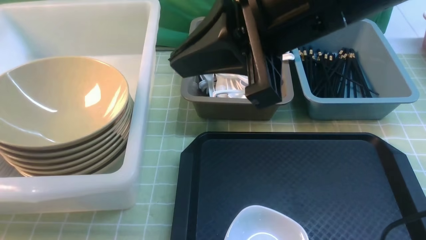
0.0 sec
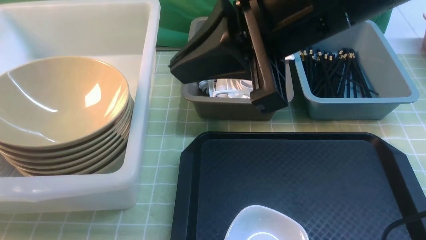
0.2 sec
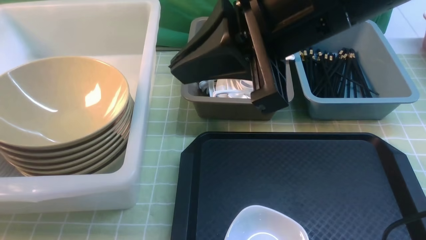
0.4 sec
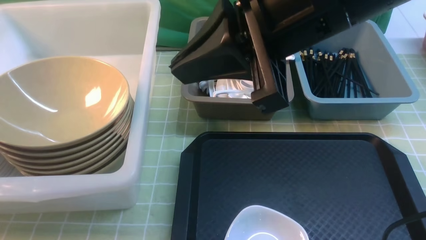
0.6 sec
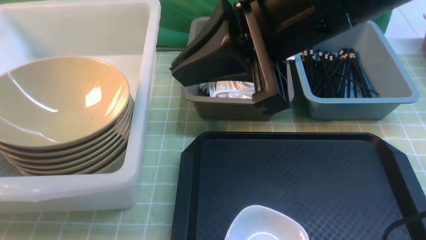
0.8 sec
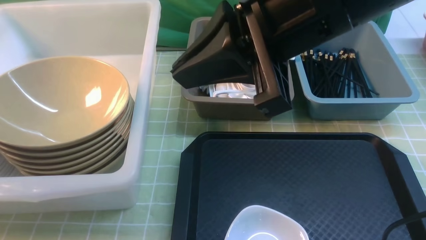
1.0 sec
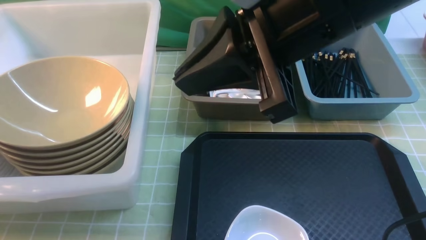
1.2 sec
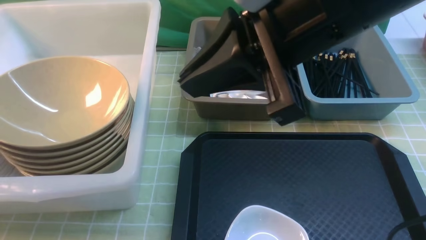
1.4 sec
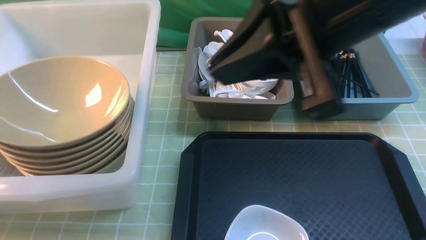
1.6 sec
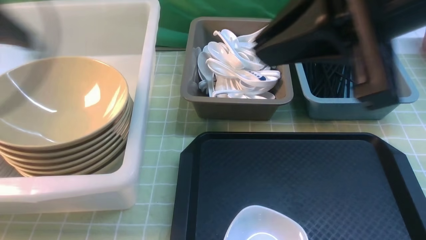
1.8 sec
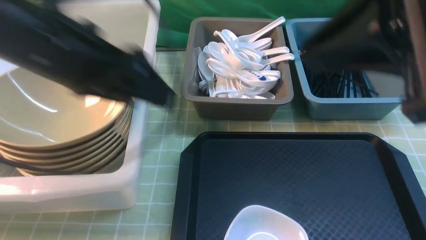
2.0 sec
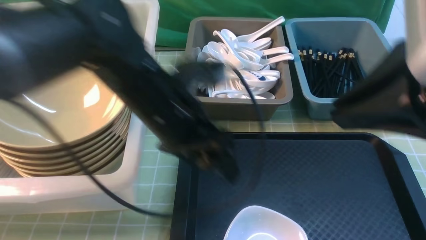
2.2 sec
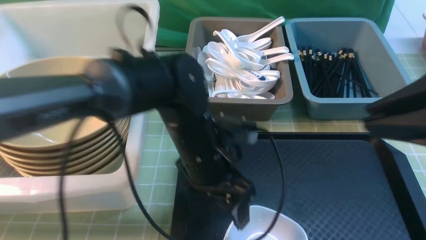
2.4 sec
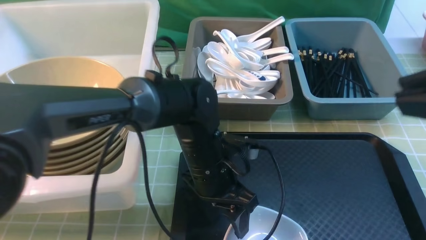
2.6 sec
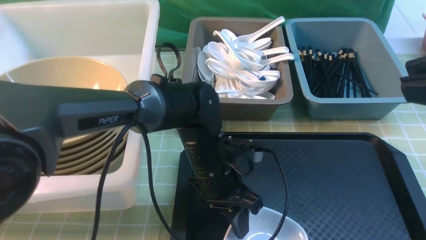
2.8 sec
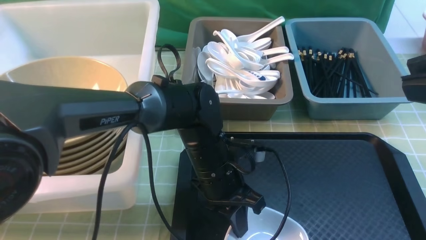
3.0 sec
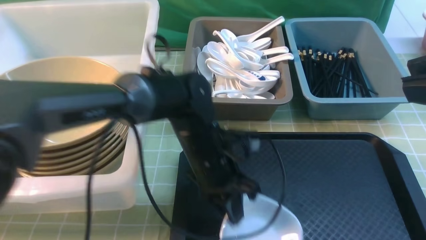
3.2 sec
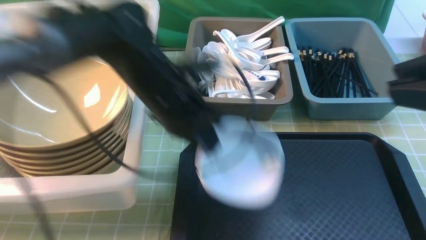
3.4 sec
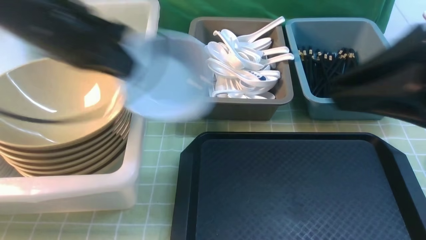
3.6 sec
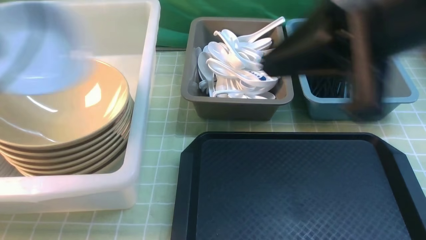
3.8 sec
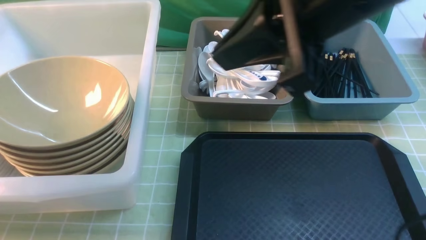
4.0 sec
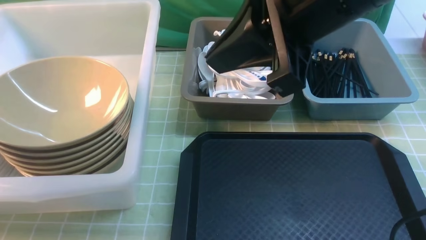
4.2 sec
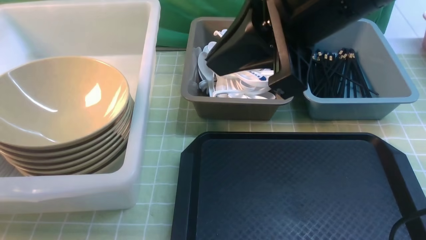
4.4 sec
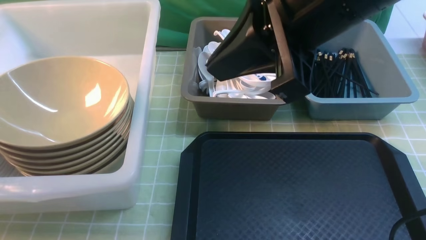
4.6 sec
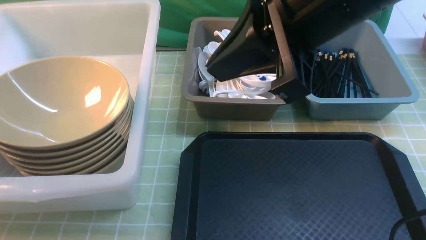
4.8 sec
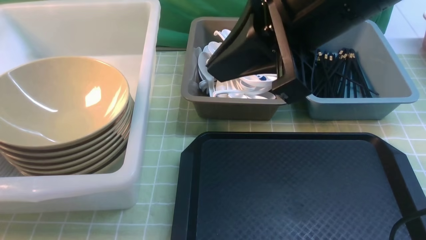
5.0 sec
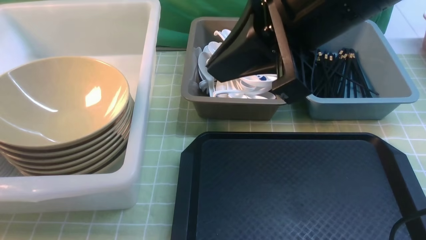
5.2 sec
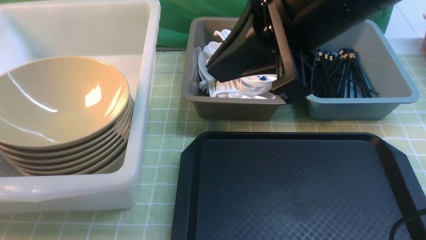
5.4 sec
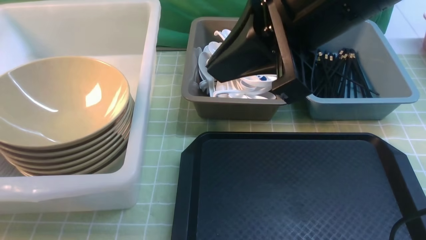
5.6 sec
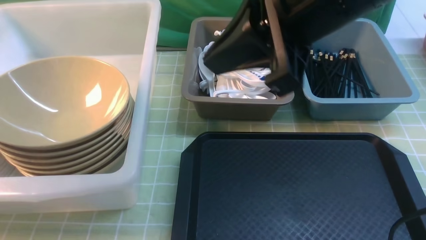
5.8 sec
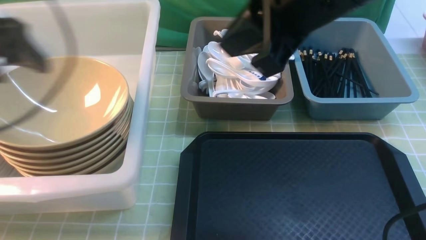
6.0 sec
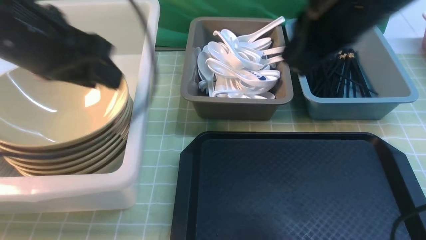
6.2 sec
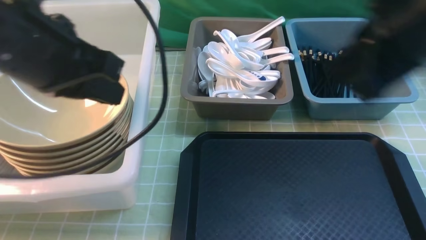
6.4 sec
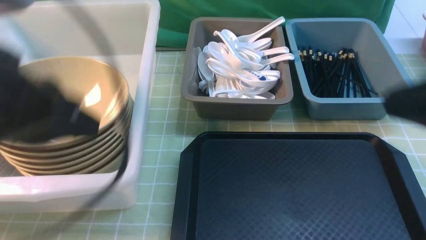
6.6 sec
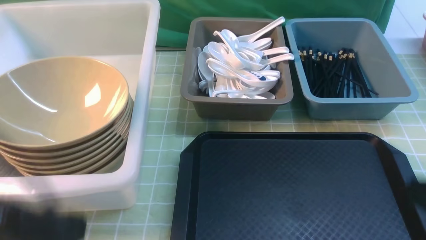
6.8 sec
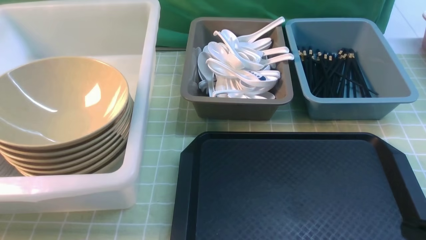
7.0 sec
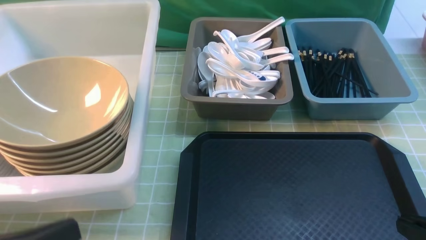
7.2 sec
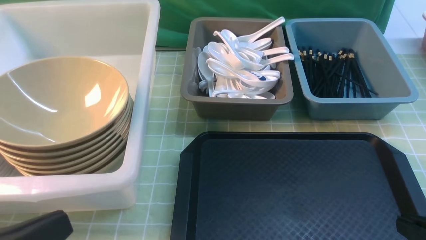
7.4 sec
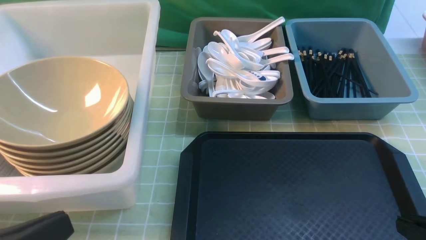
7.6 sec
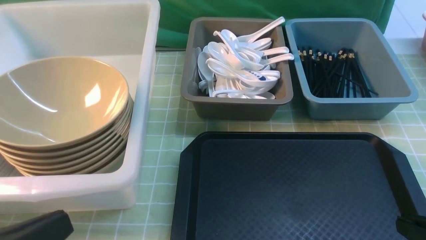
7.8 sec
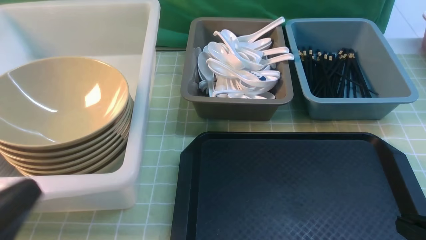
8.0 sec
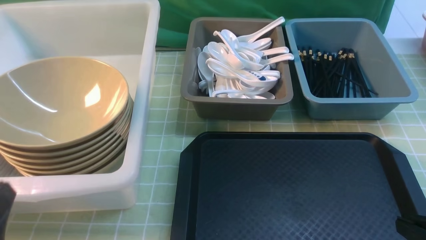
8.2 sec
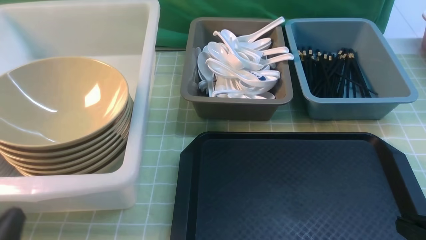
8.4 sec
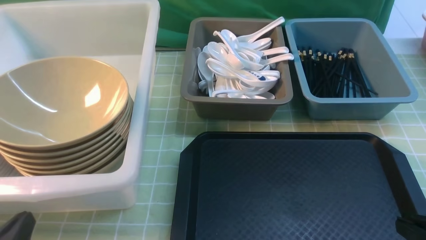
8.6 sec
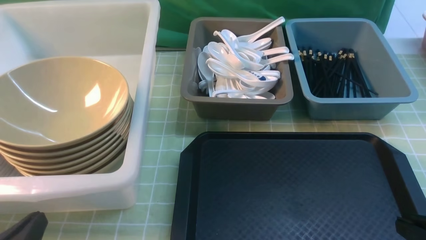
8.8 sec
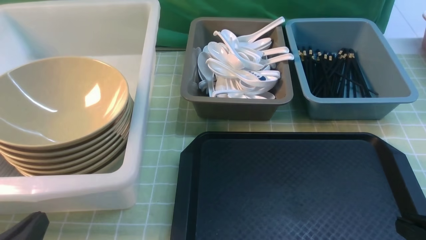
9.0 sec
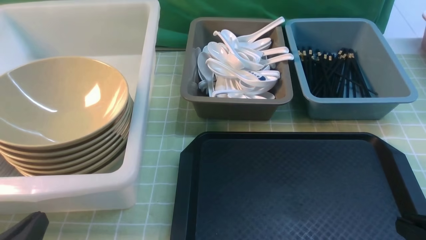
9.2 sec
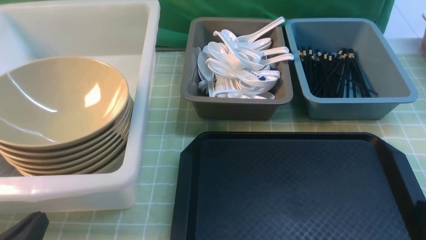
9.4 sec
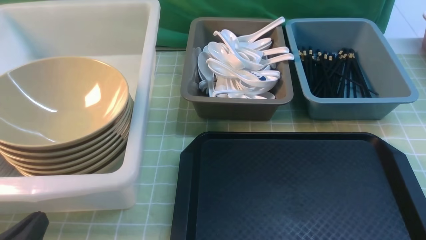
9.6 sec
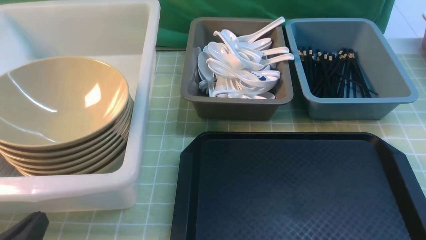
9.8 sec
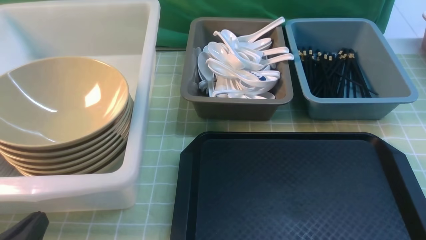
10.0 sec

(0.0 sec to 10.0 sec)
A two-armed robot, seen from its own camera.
Task of the whole recording: on green table put chopsticks spoon bowls plates into blue grey white boxes.
Step, 0.0 sec - 1.4 sec: use the left arm to put the plate into the large storage box on the left.
Step, 1.6 sec - 3.2 sec: use the left arm to grab the plate.
Step, 3.4 sec - 6.2 sec: use the left arm to put the plate into the large storage box on the left.
0.0 sec - 1.4 sec: The left gripper opens its fingers.
1.4 sec - 2.8 sec: The right gripper shifts approximately 20 cm to the right and backward, while the left gripper heads to the right and downward, covering about 50 cm, and closes its fingers.
2.8 sec - 4.2 sec: The left gripper heads to the left and upward, covering roughly 50 cm, and closes its fingers. The right gripper goes about 20 cm forward and to the left.
4.2 sec - 5.8 sec: The left gripper goes some 5 cm to the right, and opens its fingers.
5.8 sec - 7.2 sec: The left gripper goes about 25 cm backward and to the right, and closes its fingers, while the right gripper is displaced downward, backward and to the right by roughly 30 cm.
7.2 sec - 8.6 sec: The left gripper shifts approximately 10 cm downward.

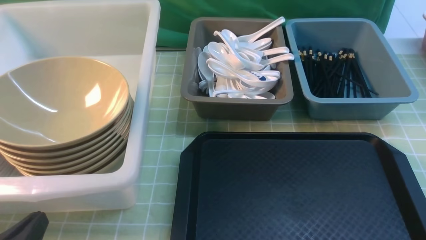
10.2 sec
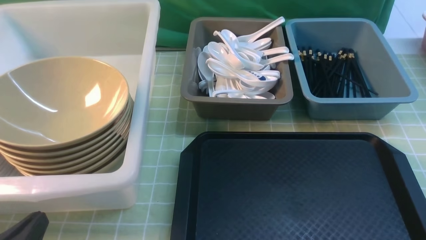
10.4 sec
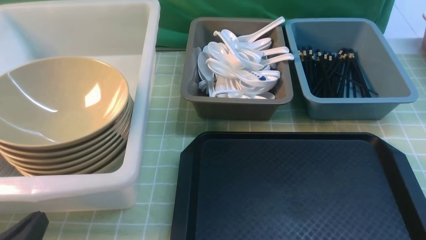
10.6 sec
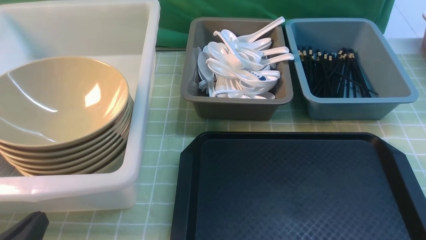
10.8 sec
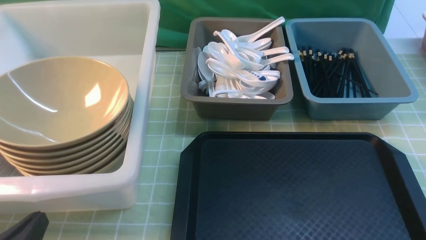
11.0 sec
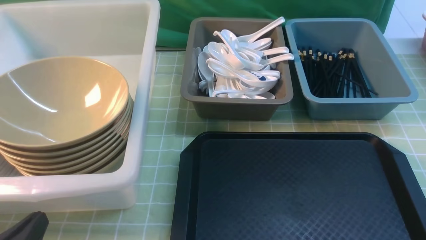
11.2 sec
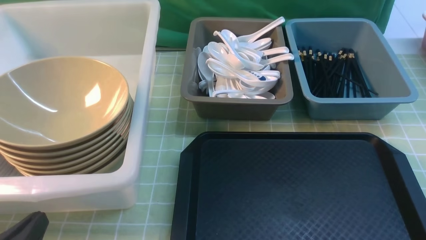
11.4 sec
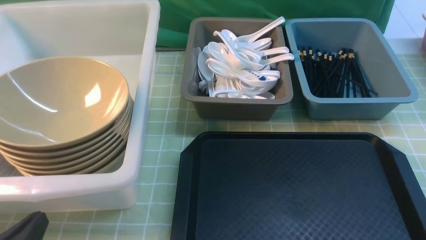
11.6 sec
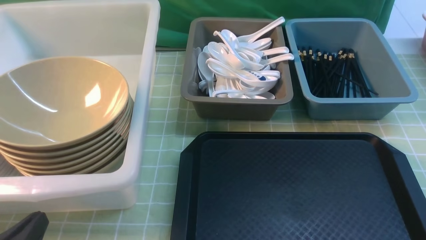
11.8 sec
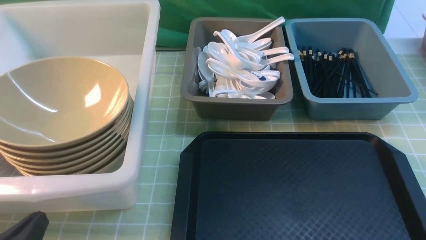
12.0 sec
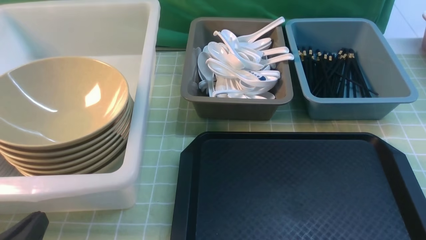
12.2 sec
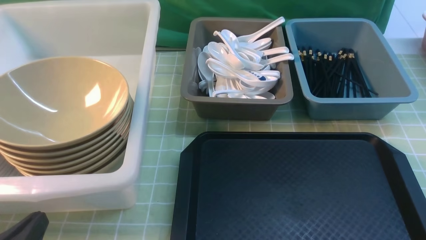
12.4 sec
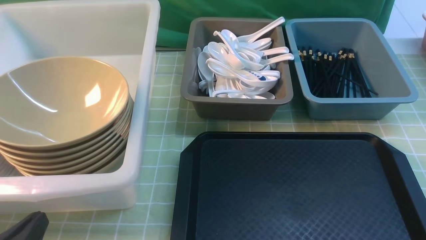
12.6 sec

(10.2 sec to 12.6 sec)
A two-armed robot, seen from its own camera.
Task of the whole recording: on green table put chopsticks spoon bowls plates into blue grey white boxes.
10.2 sec - 12.6 sec: Neither gripper changes place.

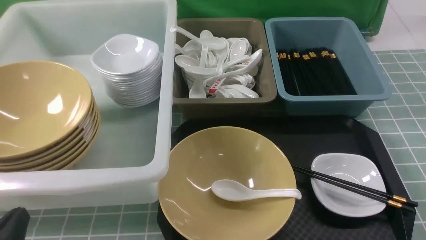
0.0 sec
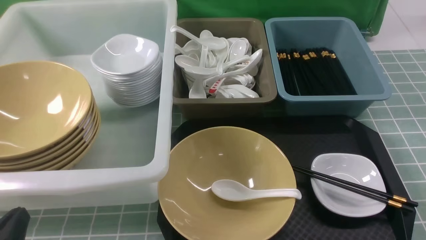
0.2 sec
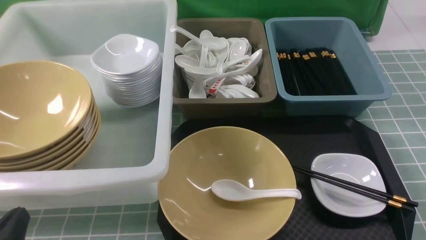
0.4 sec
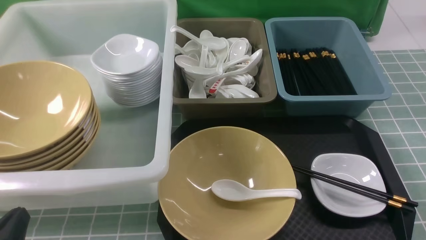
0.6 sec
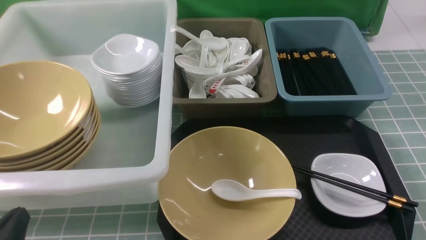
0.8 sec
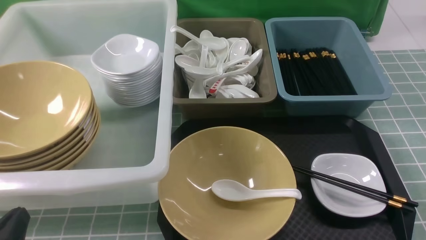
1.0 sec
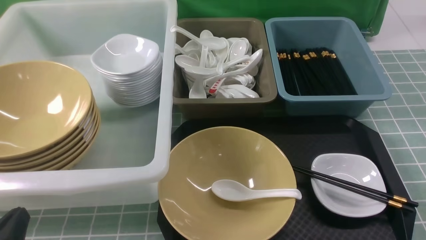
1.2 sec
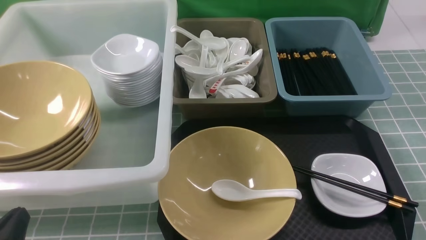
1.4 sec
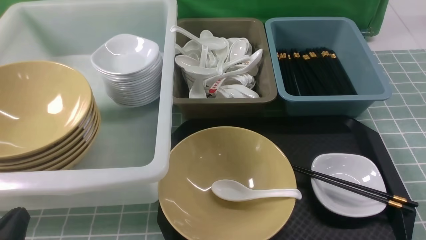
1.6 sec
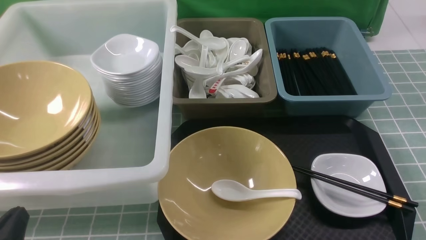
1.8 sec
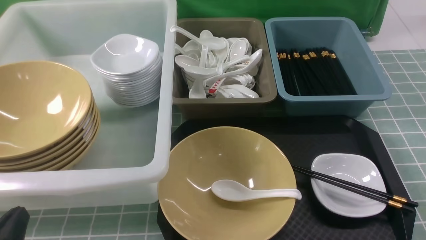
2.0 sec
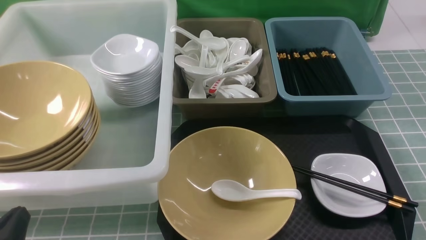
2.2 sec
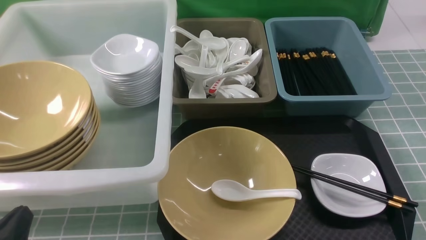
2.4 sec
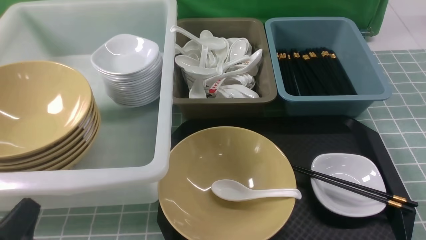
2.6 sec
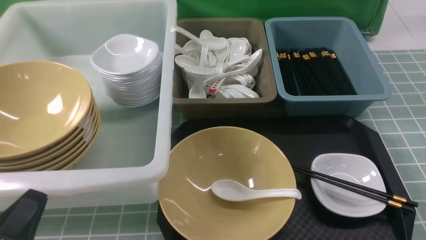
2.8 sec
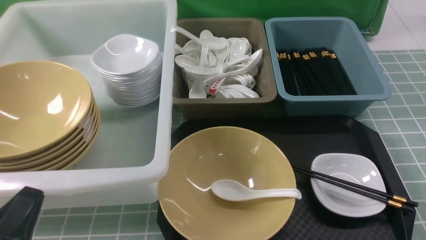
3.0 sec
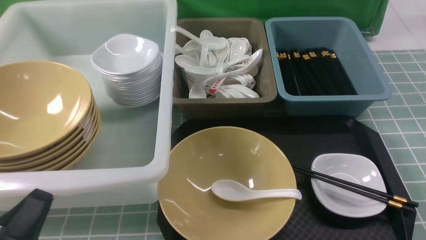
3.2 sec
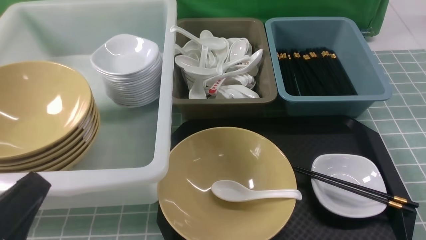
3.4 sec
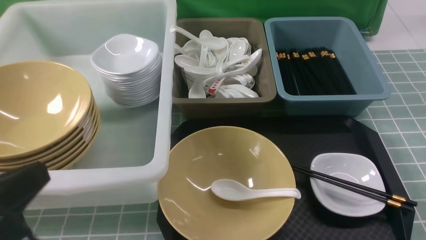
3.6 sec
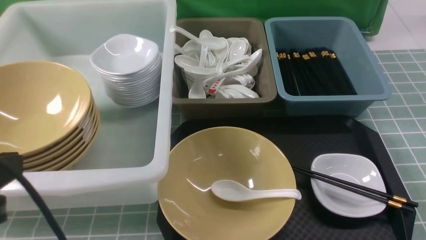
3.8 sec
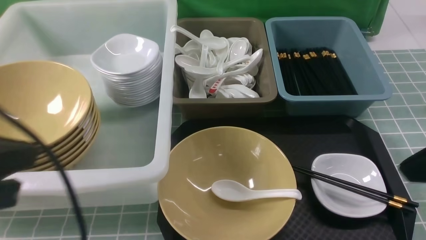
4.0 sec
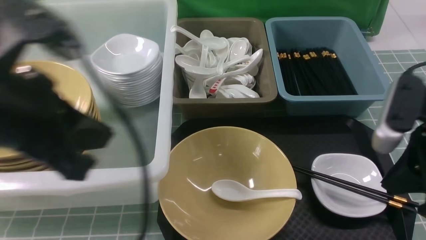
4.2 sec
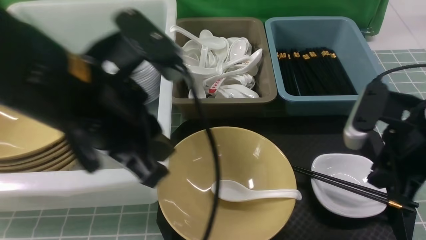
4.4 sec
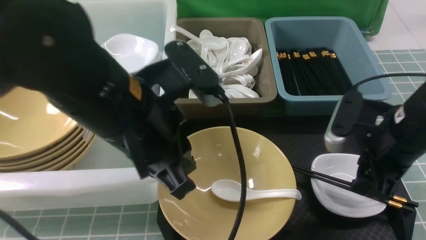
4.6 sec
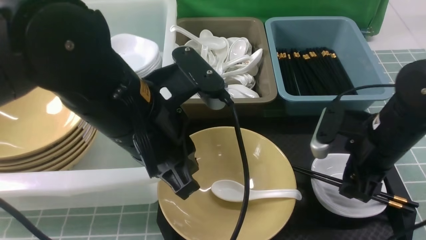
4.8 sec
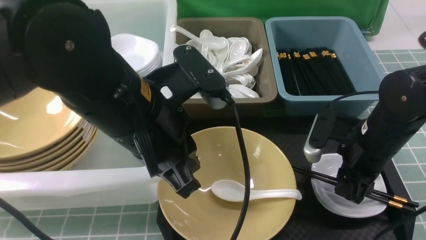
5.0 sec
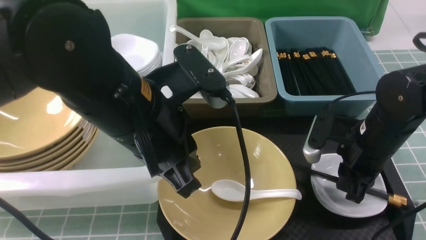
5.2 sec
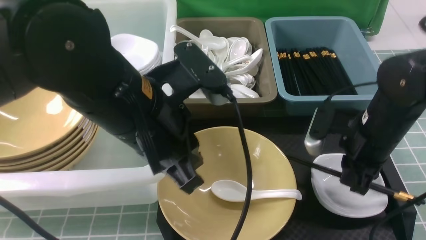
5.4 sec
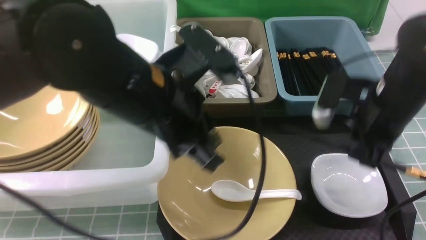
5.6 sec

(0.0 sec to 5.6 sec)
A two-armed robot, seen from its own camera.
Task of the whole recording: on blue table put chopsticks spoon bowls plates into blue grey white boxes.
Step, 0.0 sec - 5.4 sec: use the right arm to grab the chopsticks.
0.0 sec - 1.4 sec: Both grippers stay put.
2.8 sec - 4.2 sec: The right gripper moves forward, upward and to the left, about 20 cm. Meanwhile the left gripper goes approximately 25 cm upward, forward and to the right.
4.2 sec - 5.6 sec: The right gripper moves forward, roughly 10 cm, reaches roughly 10 cm downward, then returns, and opens, then closes once more. Meanwhile the left gripper travels to the right and forward by roughly 10 cm.
